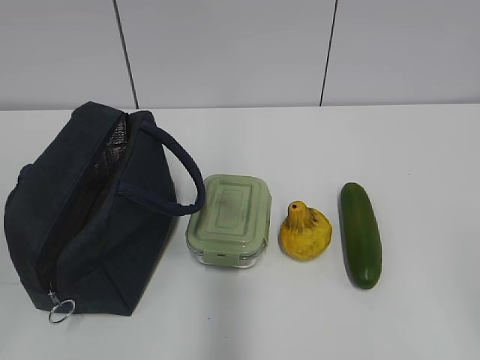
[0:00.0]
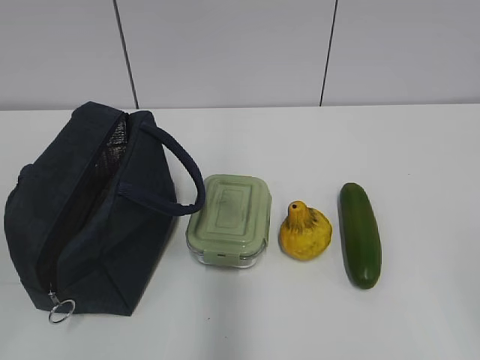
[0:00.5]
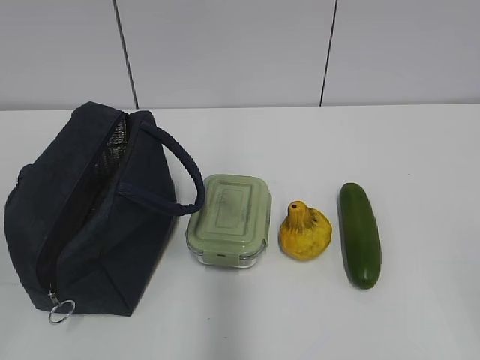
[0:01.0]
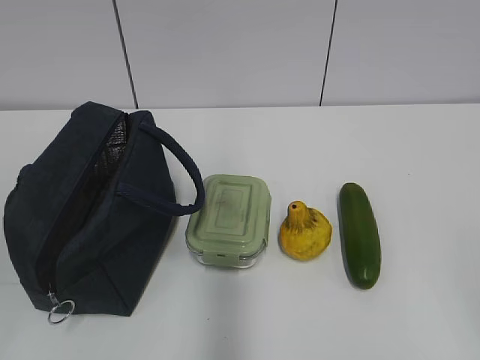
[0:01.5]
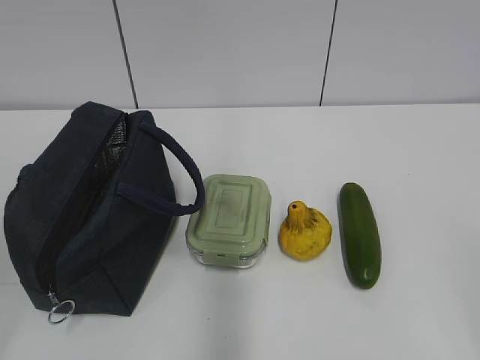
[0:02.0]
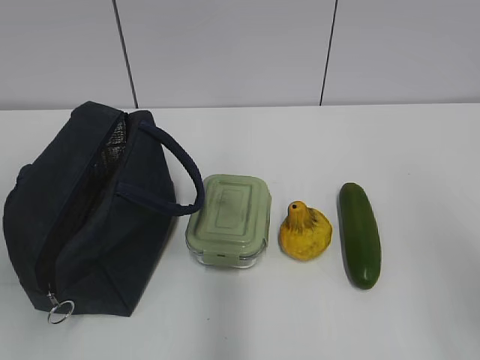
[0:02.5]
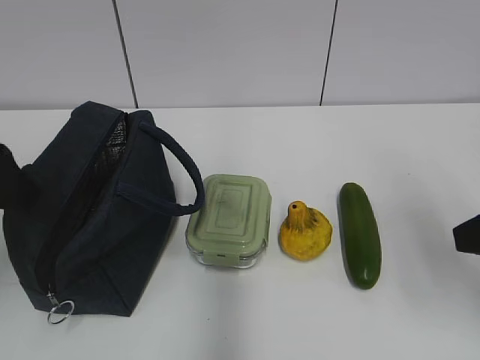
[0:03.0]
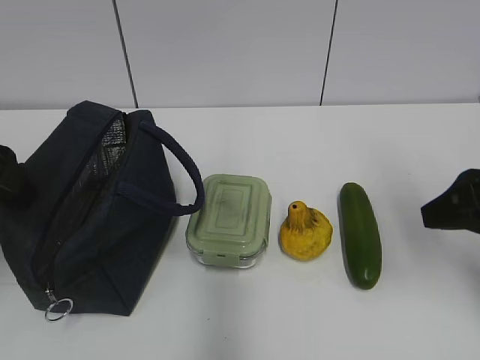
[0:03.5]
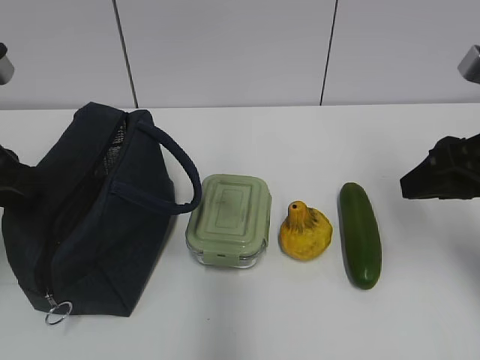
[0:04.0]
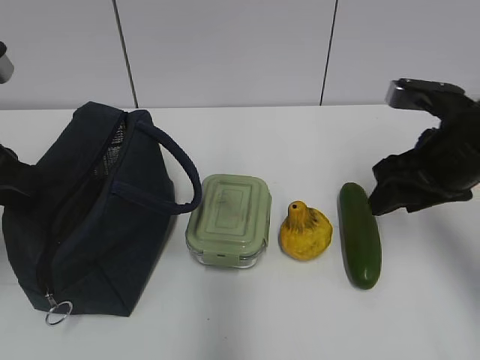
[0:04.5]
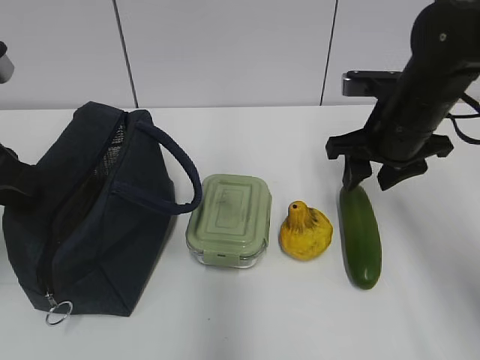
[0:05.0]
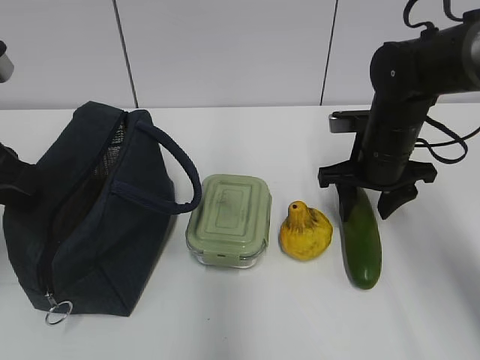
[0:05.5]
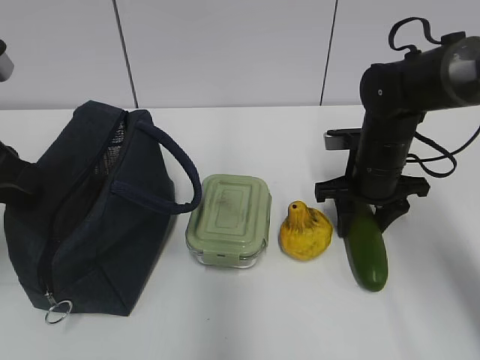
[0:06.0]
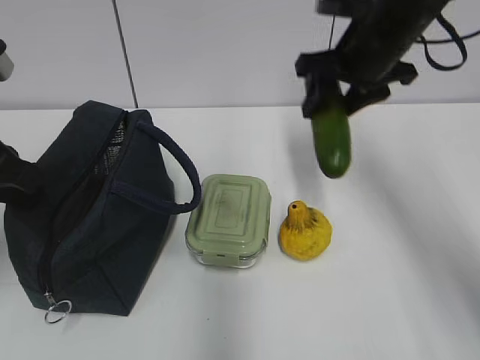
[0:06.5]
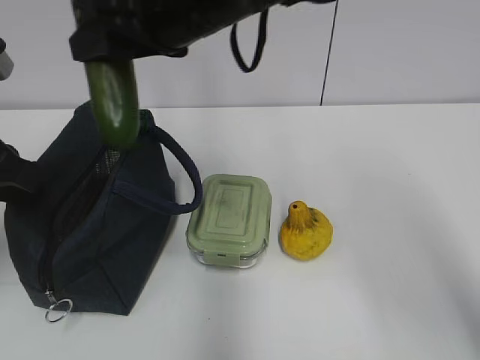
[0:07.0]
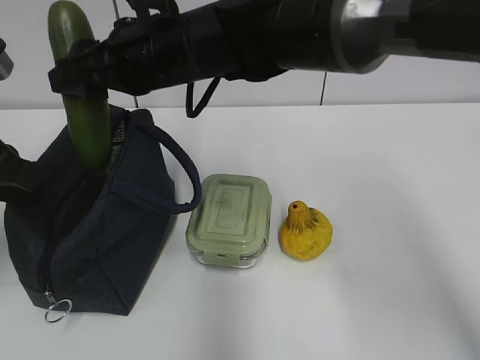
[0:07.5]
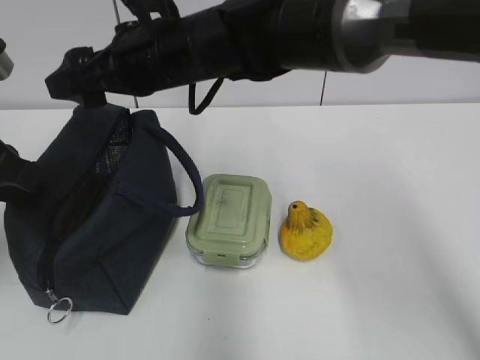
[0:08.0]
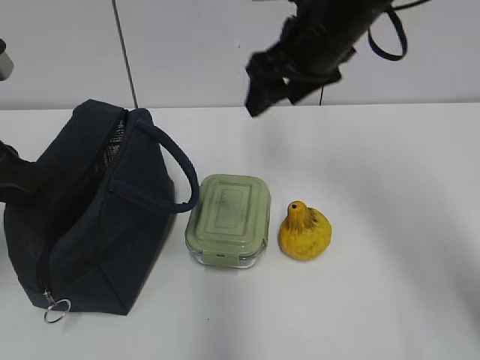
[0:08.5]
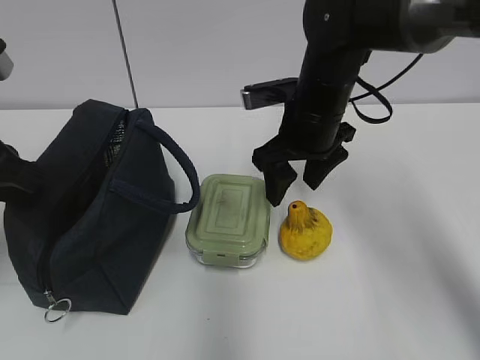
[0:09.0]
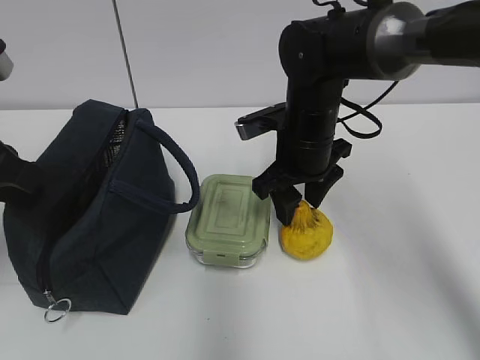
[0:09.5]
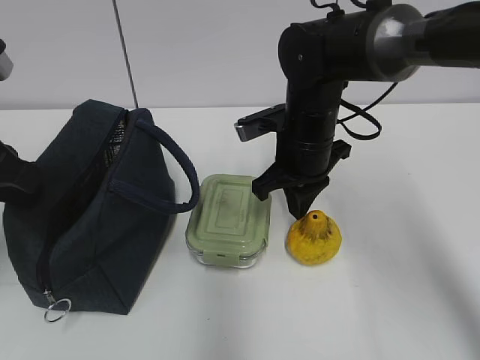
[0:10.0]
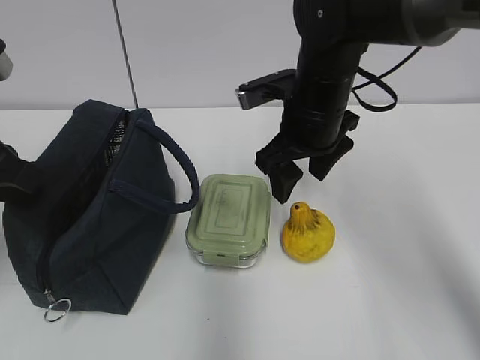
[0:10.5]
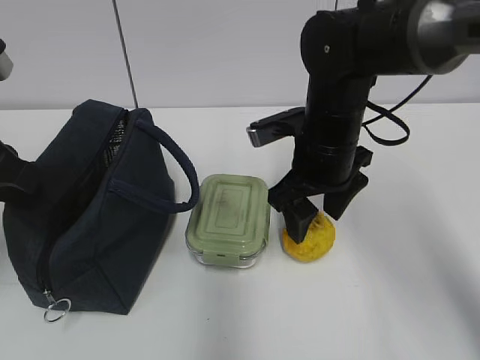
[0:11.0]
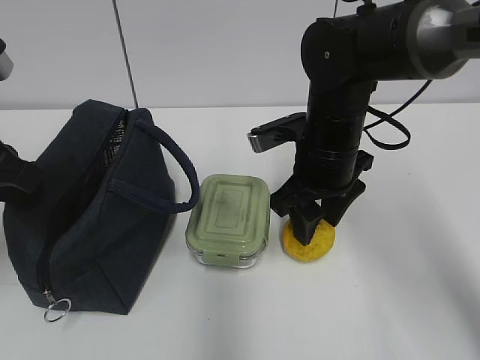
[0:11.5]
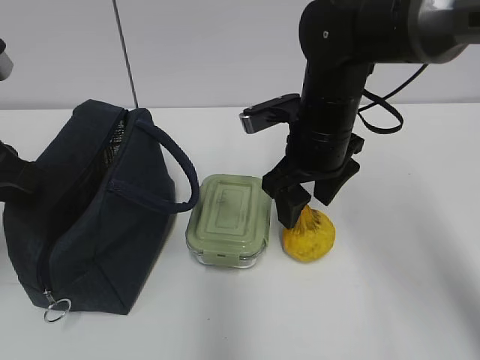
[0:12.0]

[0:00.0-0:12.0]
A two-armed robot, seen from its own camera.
0:02.0 to 0:04.0: The two grippers go approximately 25 cm forward. The left gripper closes up.
0:04.0 to 0:06.0: The right gripper heads forward, downward and to the left, covering roughly 20 cm.
0:06.0 to 0:08.0: The right gripper goes approximately 25 cm to the left and upward.
0:08.0 to 0:10.0: The right gripper goes roughly 15 cm to the right and downward, and closes.
0:10.0 to 0:12.0: The right gripper opens its fingers.

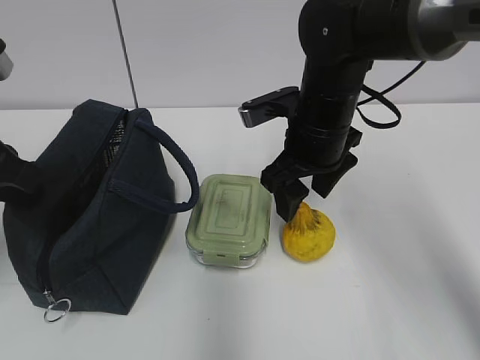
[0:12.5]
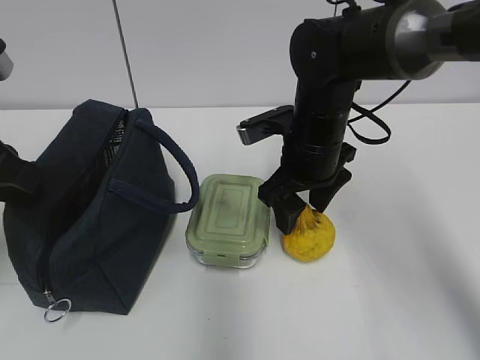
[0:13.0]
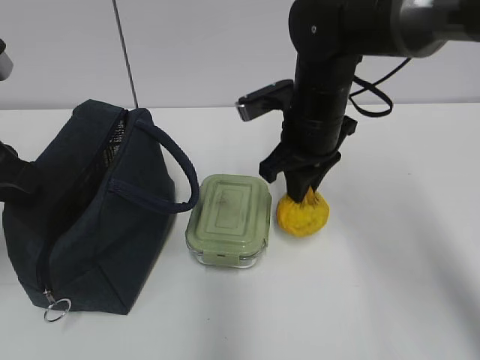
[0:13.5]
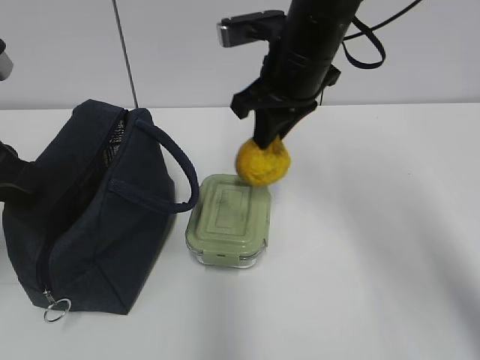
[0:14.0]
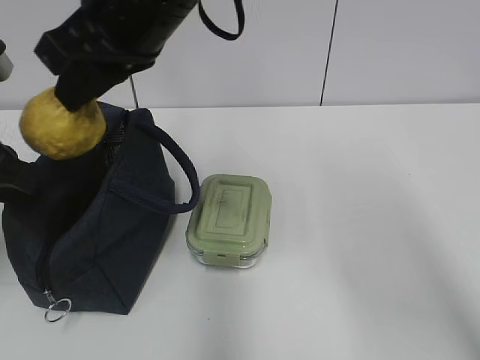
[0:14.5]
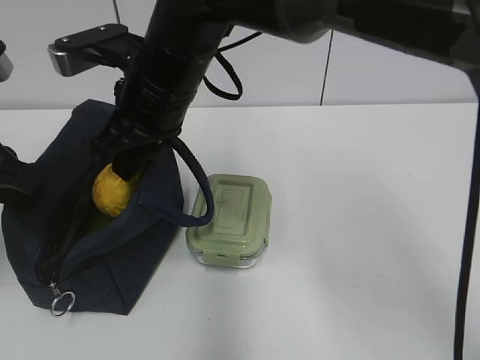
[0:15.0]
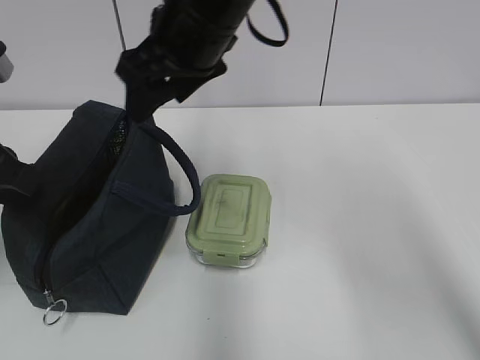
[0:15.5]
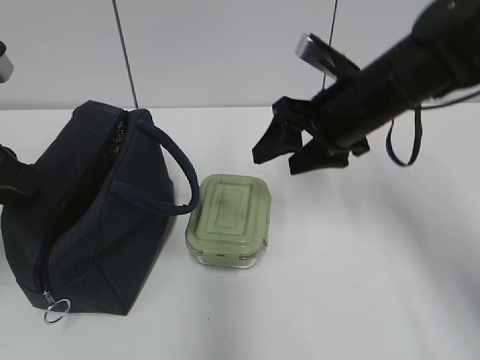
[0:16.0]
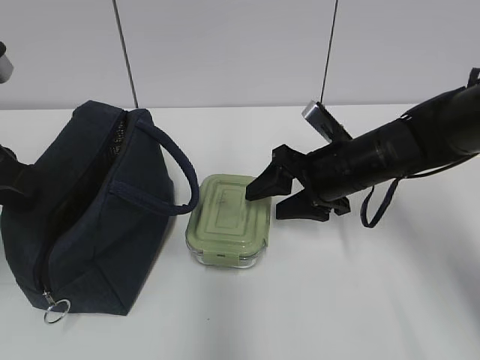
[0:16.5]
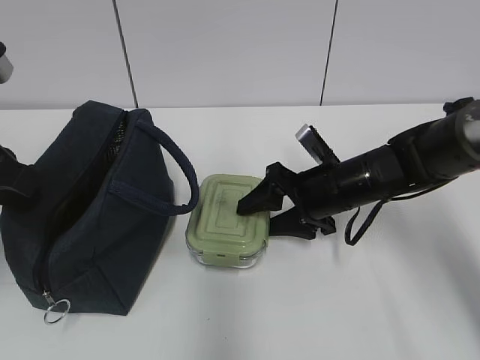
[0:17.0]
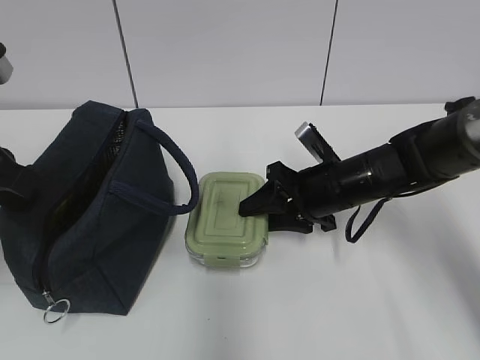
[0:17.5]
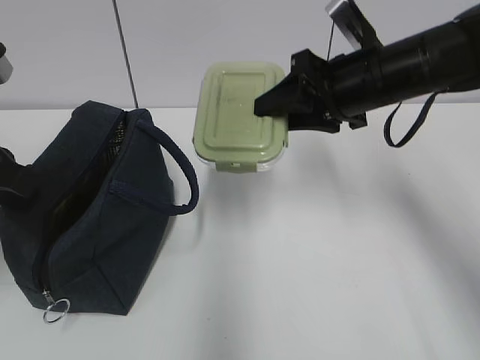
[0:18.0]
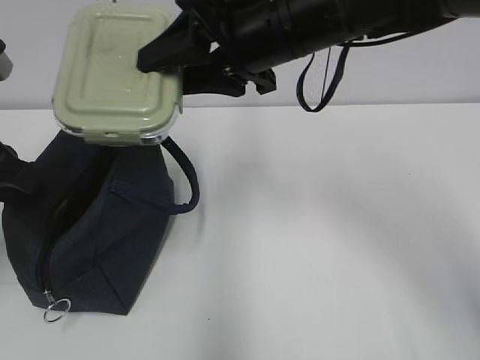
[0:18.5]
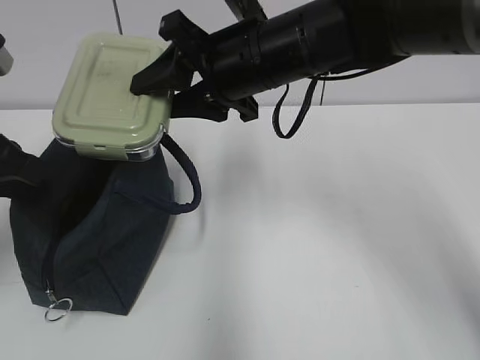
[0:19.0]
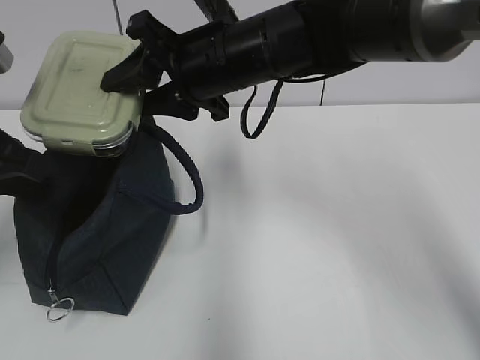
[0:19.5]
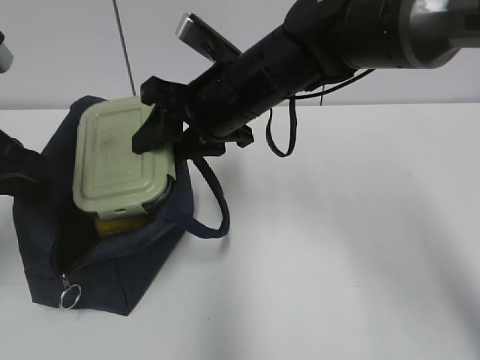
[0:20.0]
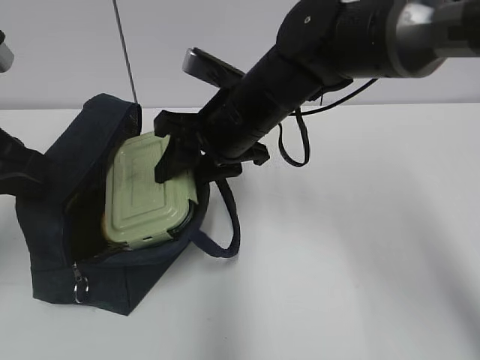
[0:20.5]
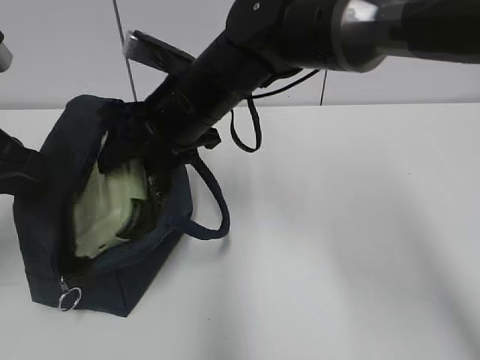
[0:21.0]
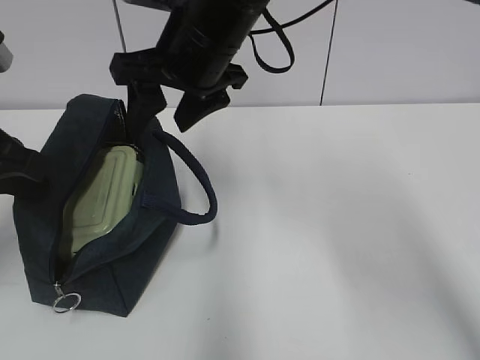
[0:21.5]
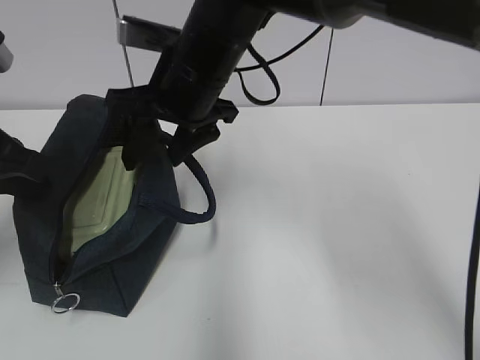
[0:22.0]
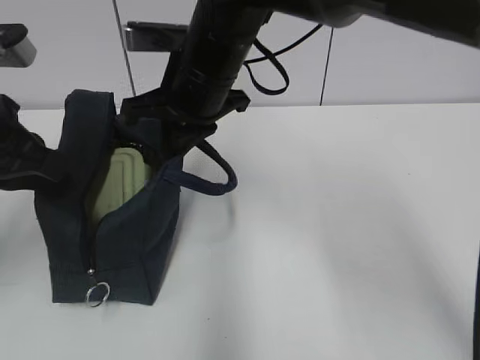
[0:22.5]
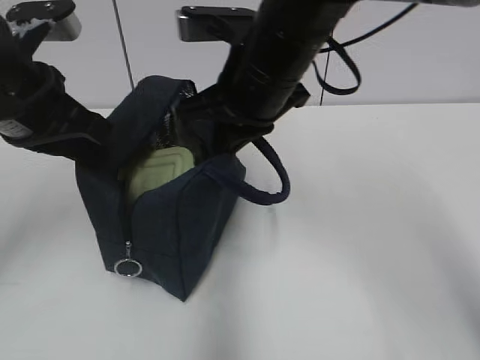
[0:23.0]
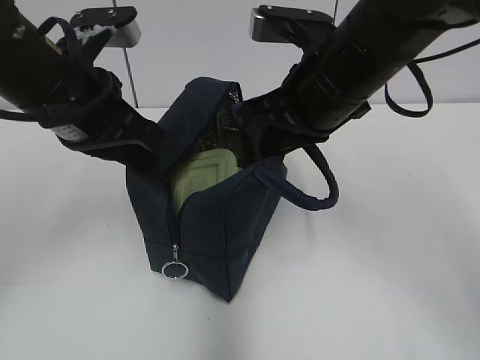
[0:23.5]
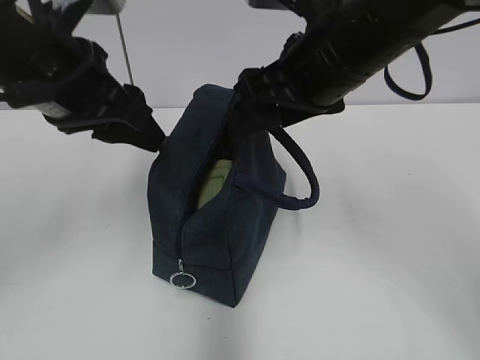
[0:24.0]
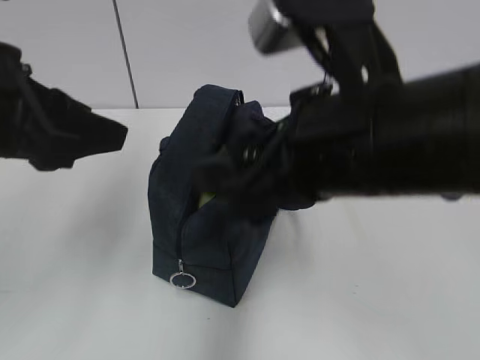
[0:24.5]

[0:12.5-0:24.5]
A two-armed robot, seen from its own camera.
0:12.5 to 0:14.5: The right gripper shifts some 20 cm upward and to the left, and closes.
0:14.5 to 0:16.5: The right gripper swings up and down, approximately 20 cm each way, with 2 reversals, and opens up.
0:16.5 to 0:18.5: The right gripper shifts approximately 20 cm upward and to the left.
0:18.5 to 0:20.5: The right gripper shifts approximately 10 cm downward.
0:20.5 to 0:22.5: The right gripper moves upward, roughly 5 cm, and closes up.
0:22.5 to 0:24.5: The left gripper changes place by approximately 5 cm, and opens up; the right gripper goes about 20 cm backward and to the right, and opens its fingers.

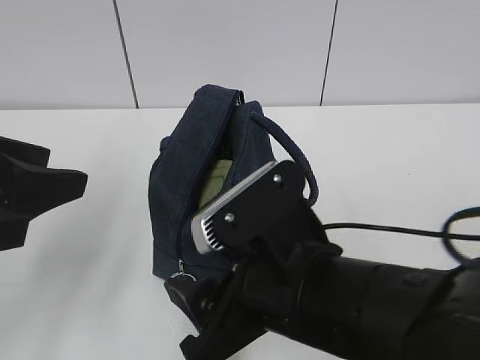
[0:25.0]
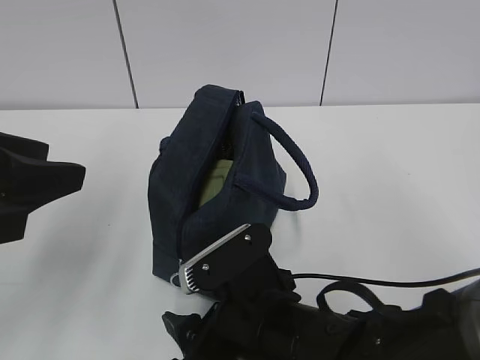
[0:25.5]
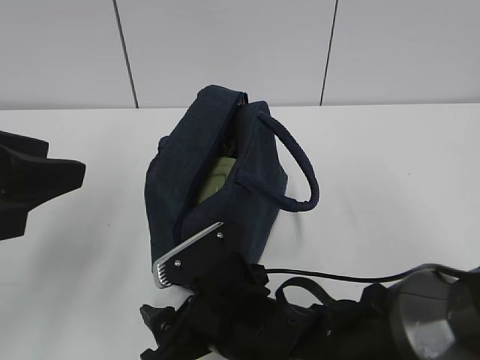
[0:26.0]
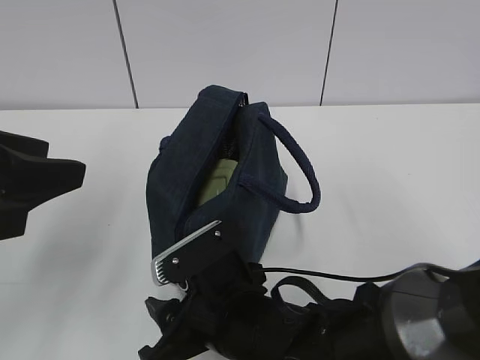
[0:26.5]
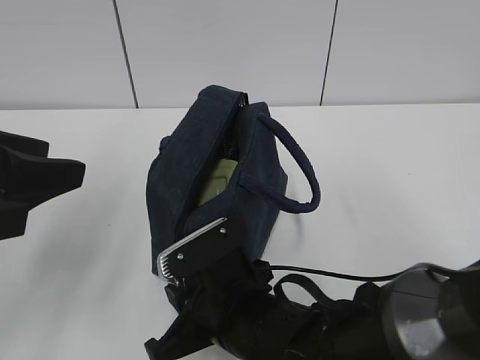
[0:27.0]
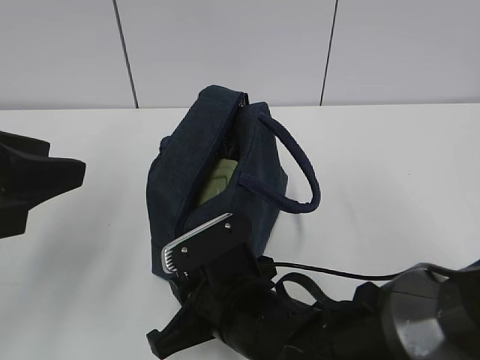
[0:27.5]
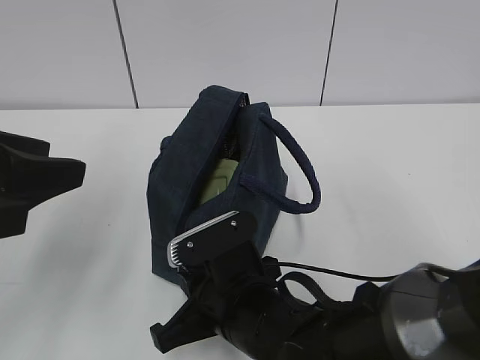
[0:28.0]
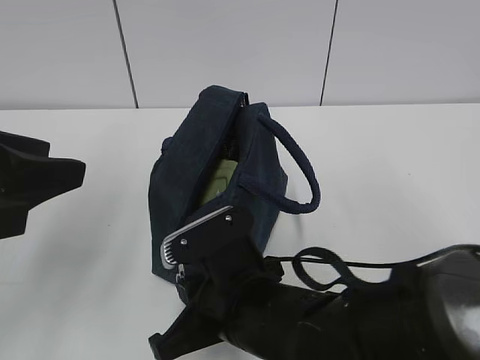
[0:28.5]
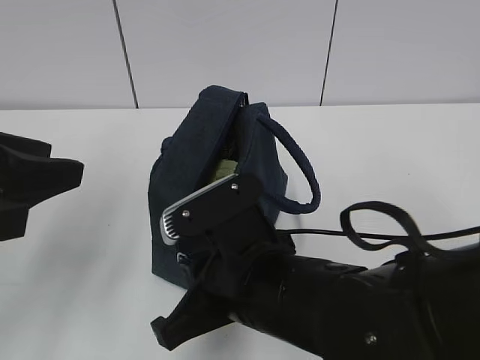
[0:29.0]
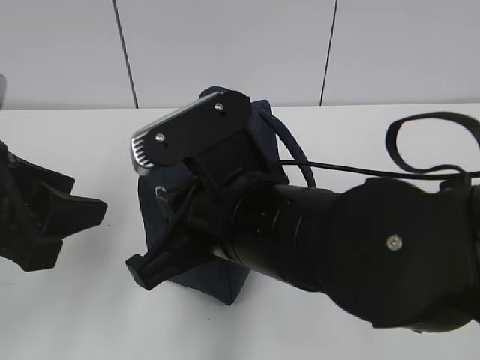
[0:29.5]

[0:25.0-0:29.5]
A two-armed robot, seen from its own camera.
0:25.0 to 0:27.0: The right gripper goes some 10 cm downward, and closes up.
0:27.0 to 0:29.5: The right gripper moves upward, roughly 15 cm.
